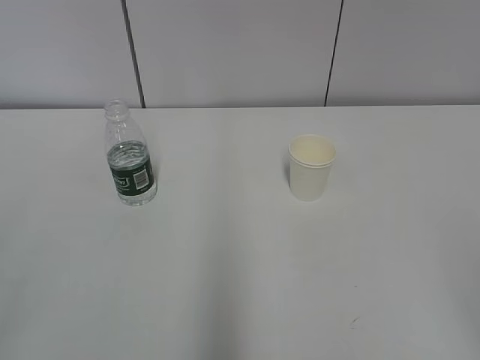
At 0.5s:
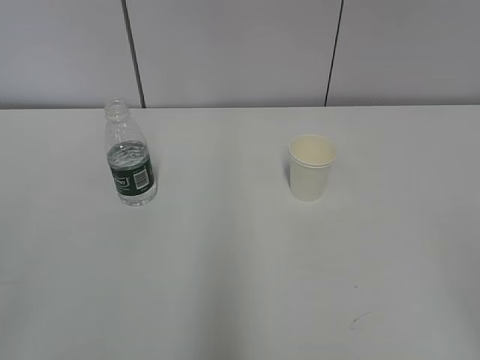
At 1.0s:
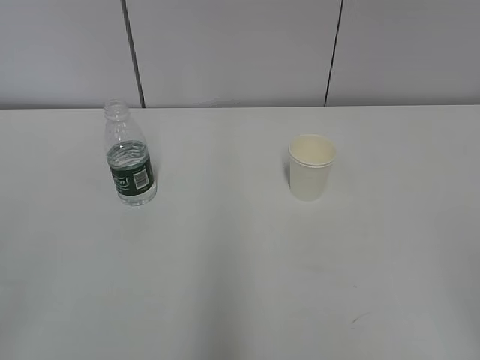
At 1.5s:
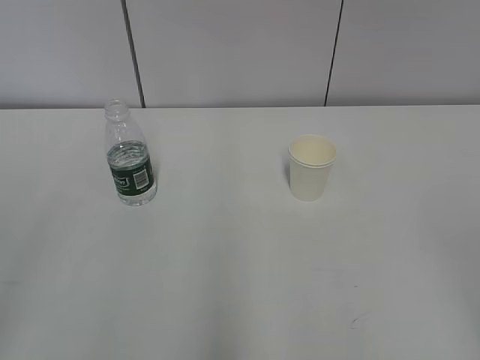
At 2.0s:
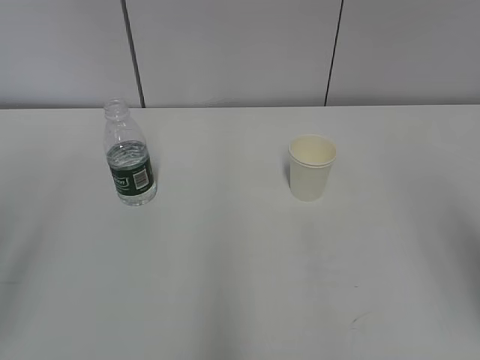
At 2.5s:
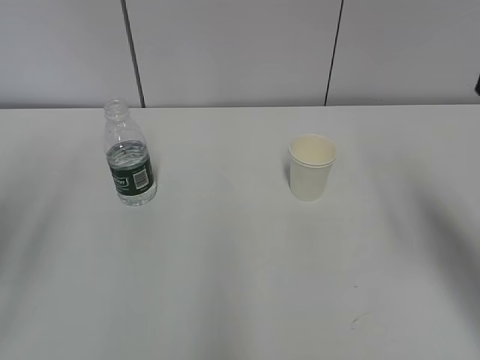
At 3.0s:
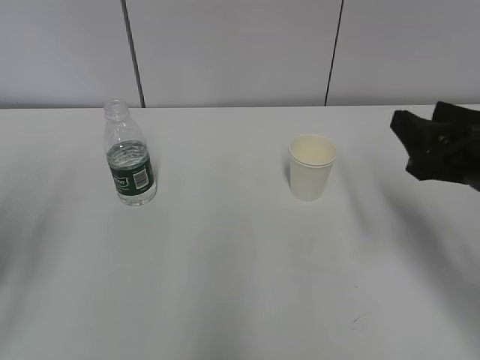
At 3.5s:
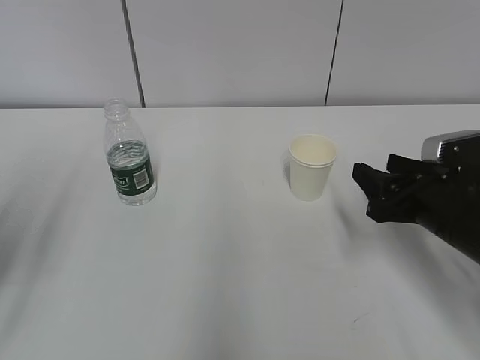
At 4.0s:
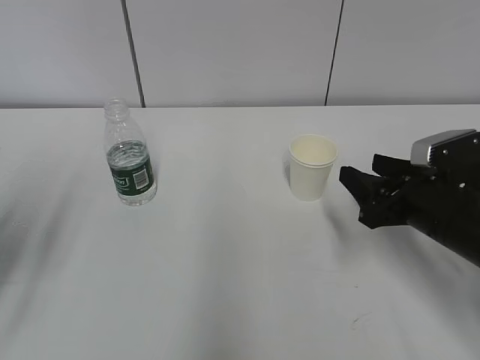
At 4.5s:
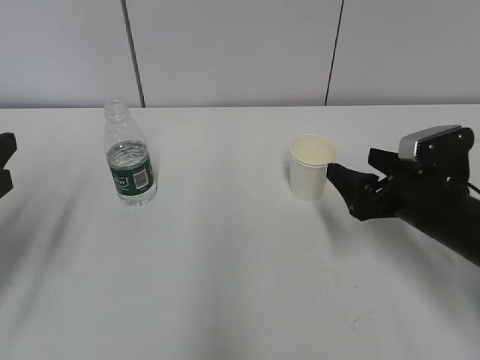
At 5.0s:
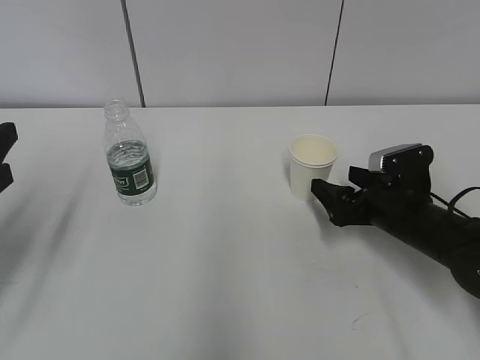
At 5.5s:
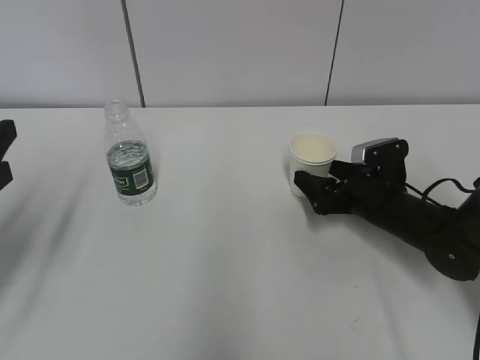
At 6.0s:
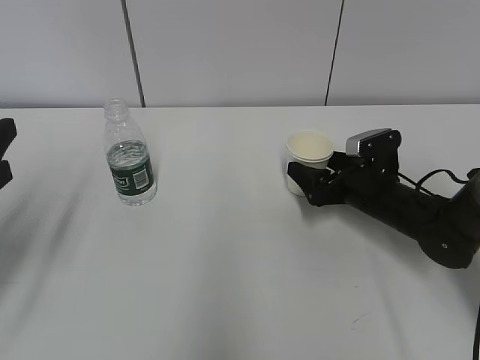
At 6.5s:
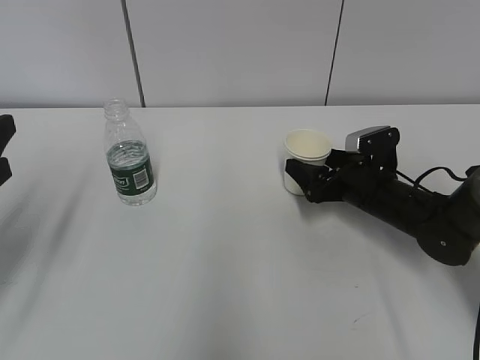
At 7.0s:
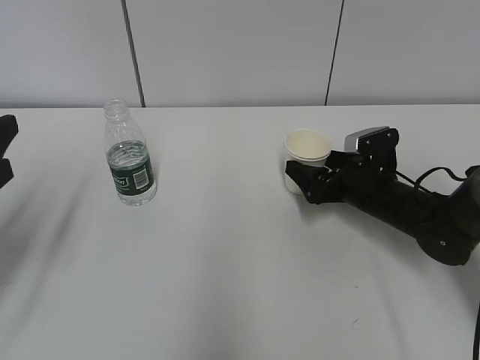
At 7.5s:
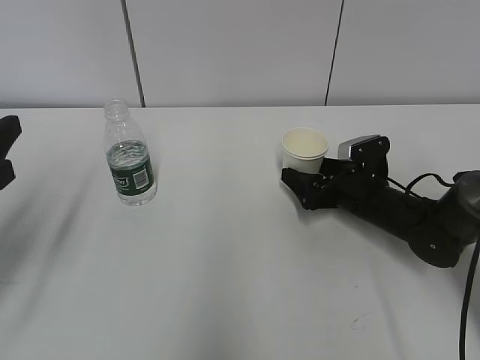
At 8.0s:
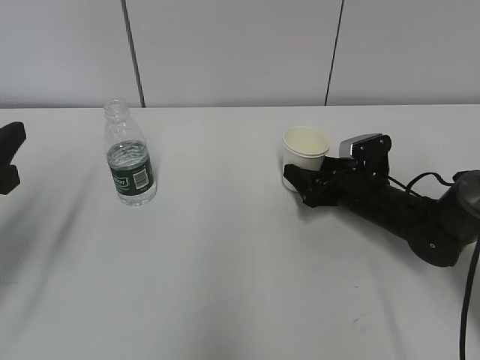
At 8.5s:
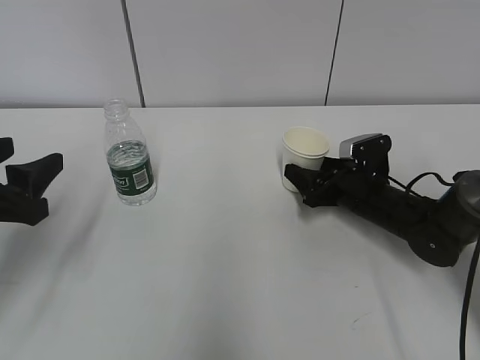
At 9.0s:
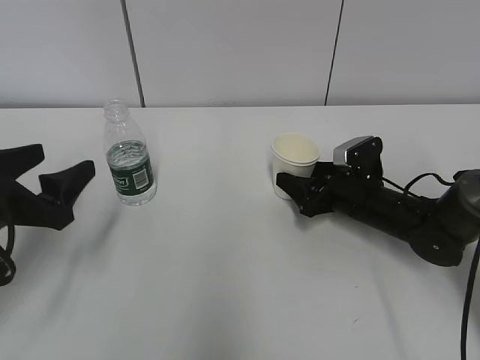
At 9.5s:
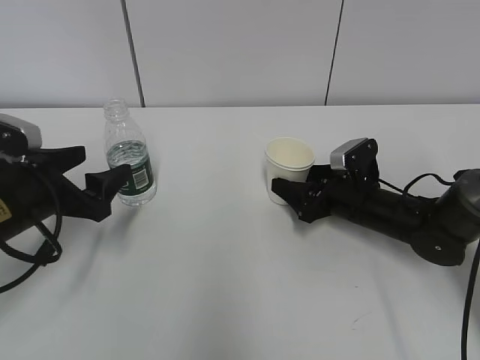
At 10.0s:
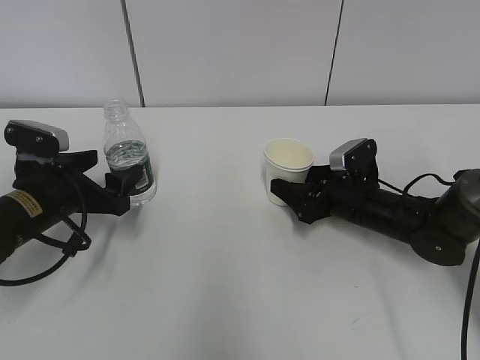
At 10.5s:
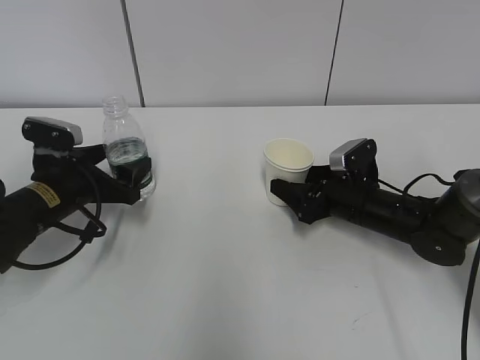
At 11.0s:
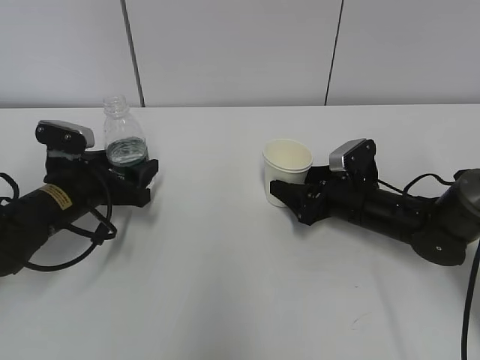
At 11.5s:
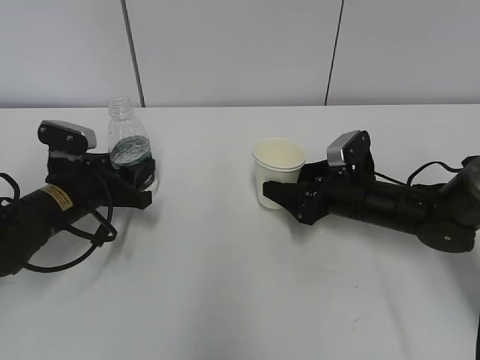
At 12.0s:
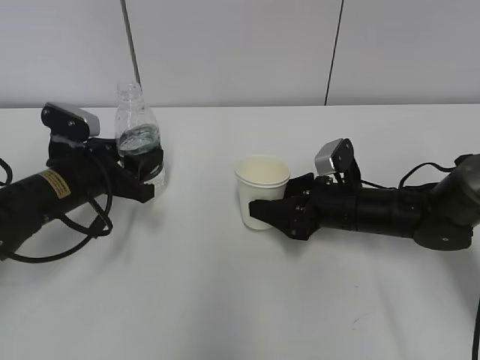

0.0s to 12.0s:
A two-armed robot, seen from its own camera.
Step, 0.0s to 7.0s: Grab the paper cup with the right hand.
Step, 7.5s to 9.5s: Grab the water bottle with the left hand.
2.0s to 4.0s: The right gripper moves downward and forward, some 25 cm.
4.0s to 6.0s: The right gripper heads forward and downward, covering approximately 10 cm, and opens its fingers.
6.0s to 8.0s: The right gripper closes.
8.0s to 10.0s: The left gripper goes roughly 15 cm downward, forward and to the right.
10.0s to 12.0s: The left gripper closes.

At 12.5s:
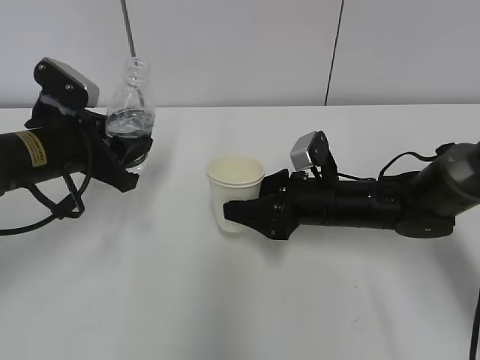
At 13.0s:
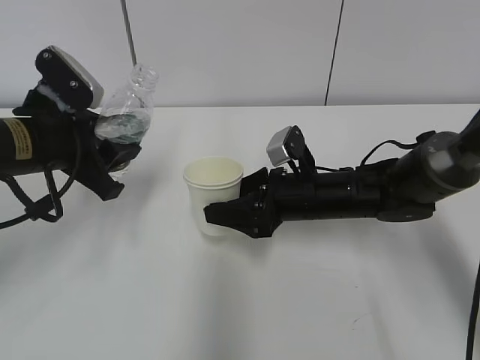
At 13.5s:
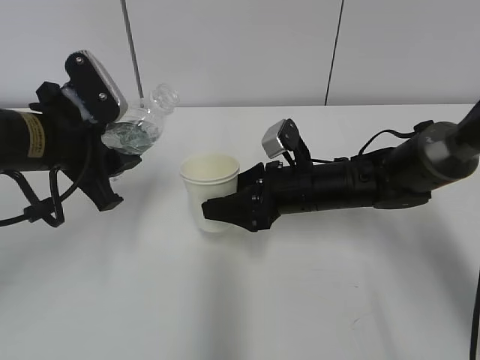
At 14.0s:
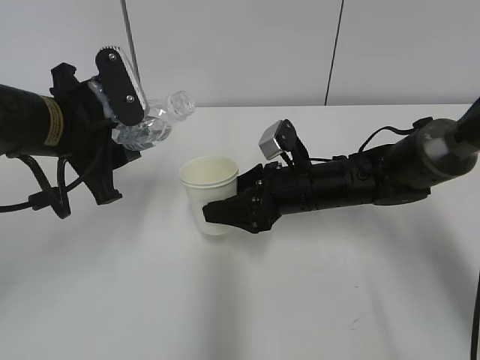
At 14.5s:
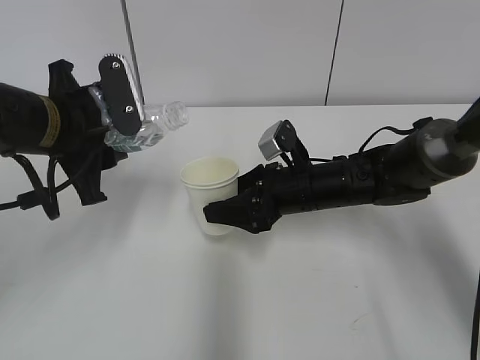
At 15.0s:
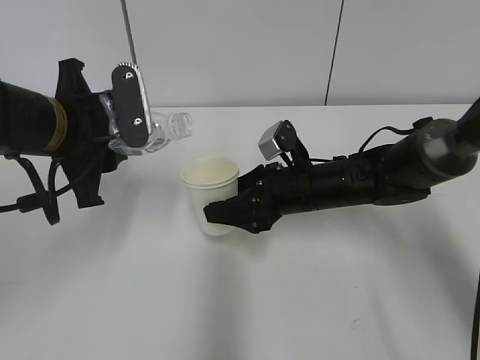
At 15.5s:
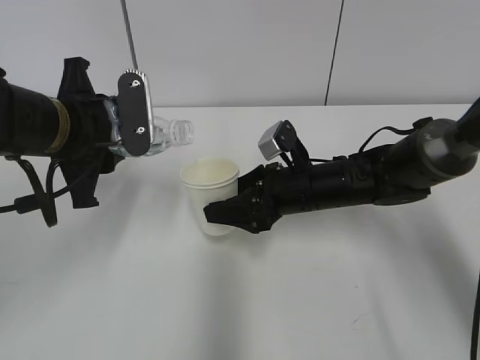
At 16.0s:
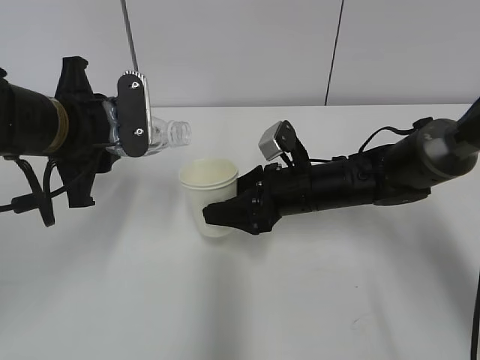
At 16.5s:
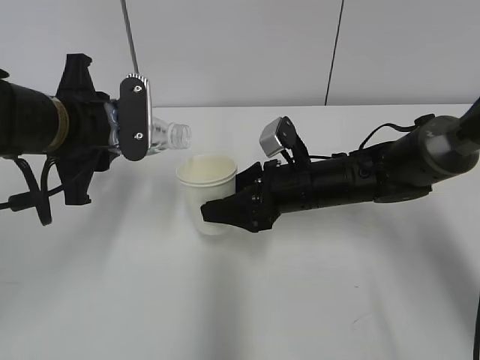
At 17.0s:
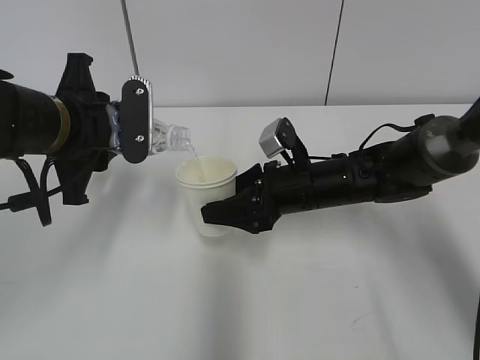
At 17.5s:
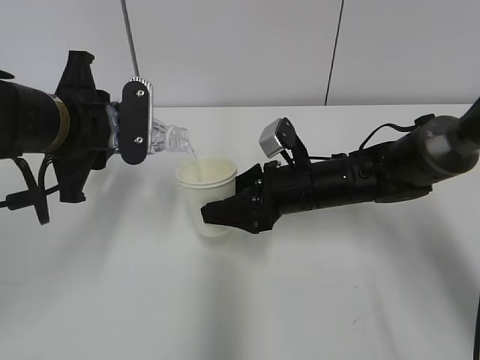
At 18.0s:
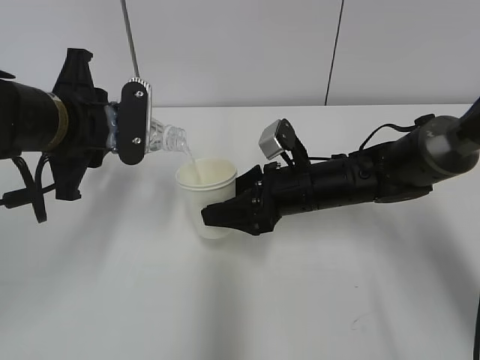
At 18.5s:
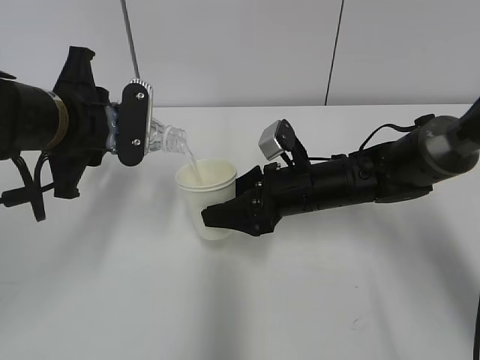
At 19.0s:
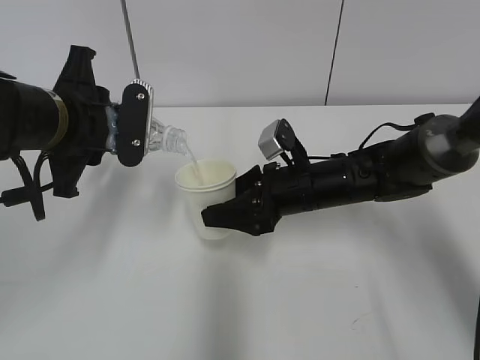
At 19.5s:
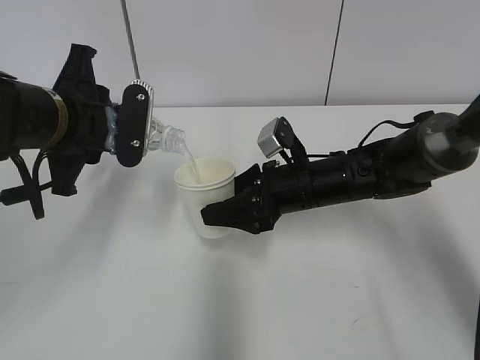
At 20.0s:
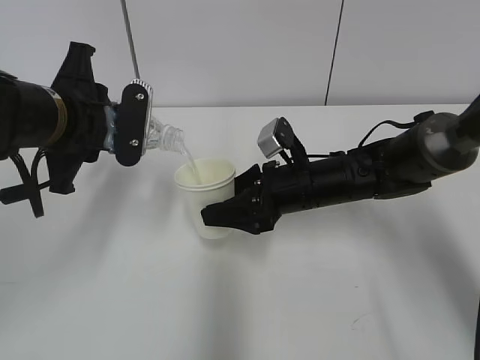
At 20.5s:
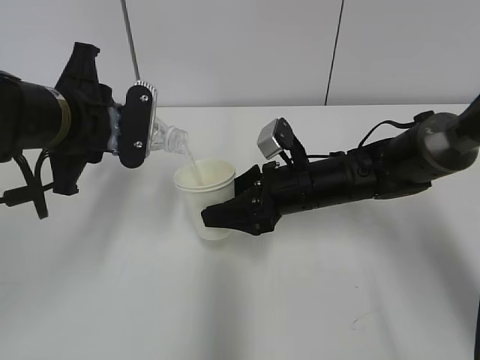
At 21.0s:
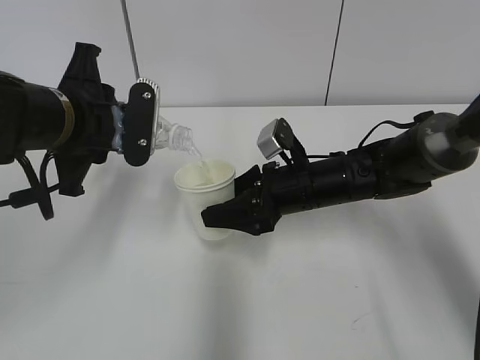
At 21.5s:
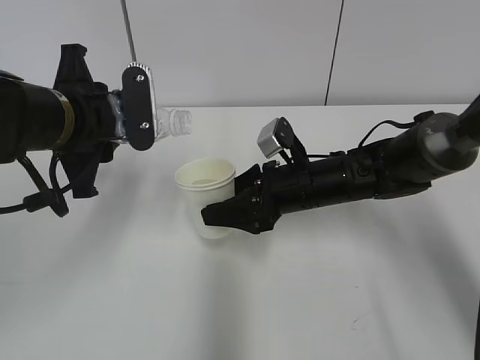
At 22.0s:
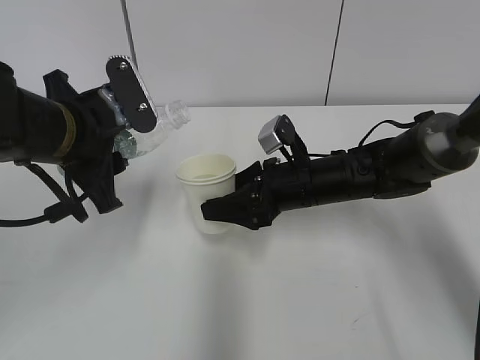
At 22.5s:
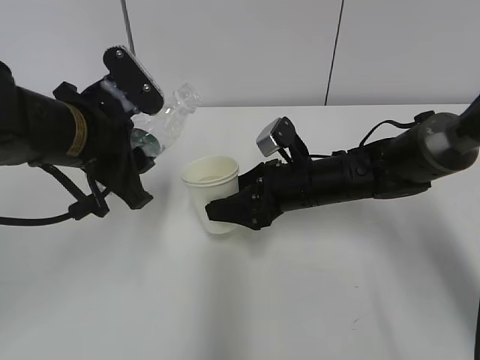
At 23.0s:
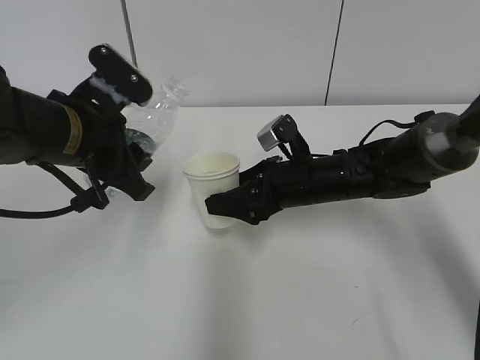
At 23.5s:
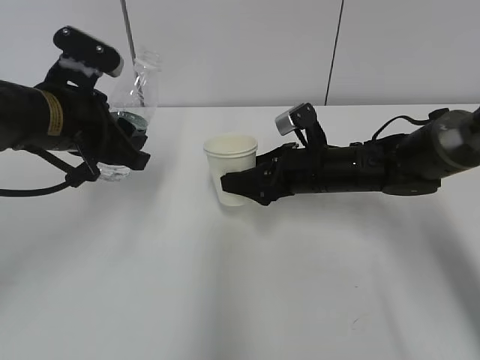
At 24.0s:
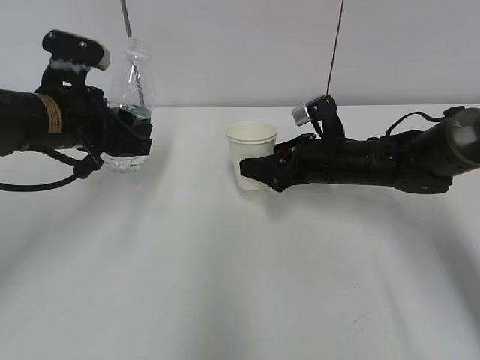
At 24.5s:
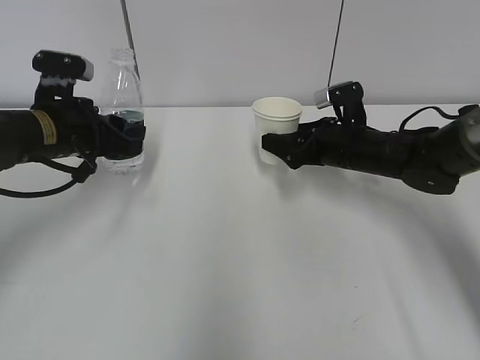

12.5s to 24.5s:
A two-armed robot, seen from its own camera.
Step, 14.0s to 17.5s: Fill water with the right hand.
Step, 14.0s to 17.5s: Pour water with the left hand.
Step, 18.0s to 20.5s: Collect water with the left hand.
Step, 21.0s to 23.5s: Place the paper cup with the right hand.
12.5s to 14.5s: The left gripper shifts about 5 cm upward.
14.5s to 16.5s: There are only small adjustments of the grippers.
16.5s to 18.5s: The grippers stay close to where they were, moving slightly.
18.5s to 20.5s: Both grippers stay about where they are.
22.5s to 24.5s: The left gripper shifts some 10 cm forward and to the left; the right gripper shifts about 5 cm to the right.

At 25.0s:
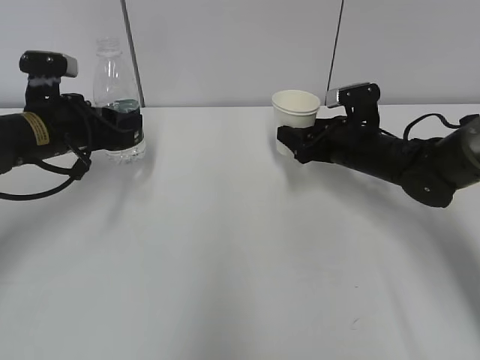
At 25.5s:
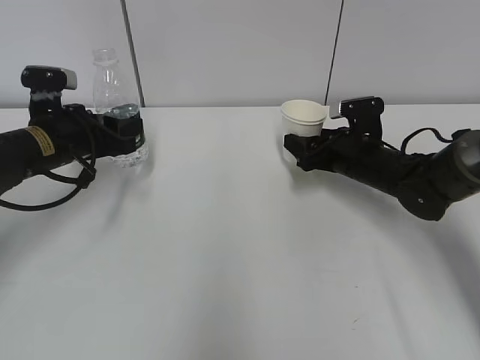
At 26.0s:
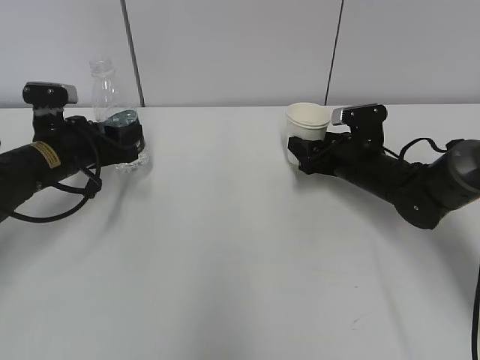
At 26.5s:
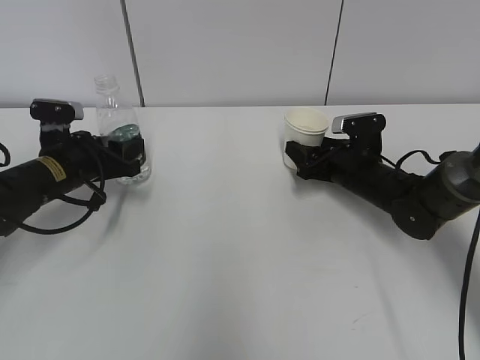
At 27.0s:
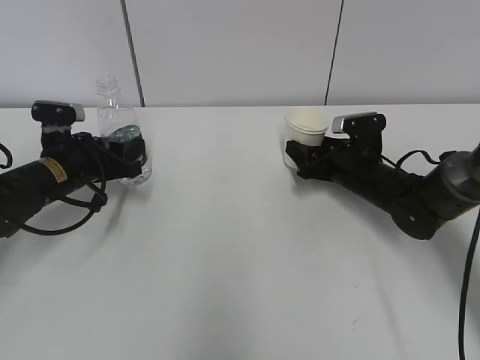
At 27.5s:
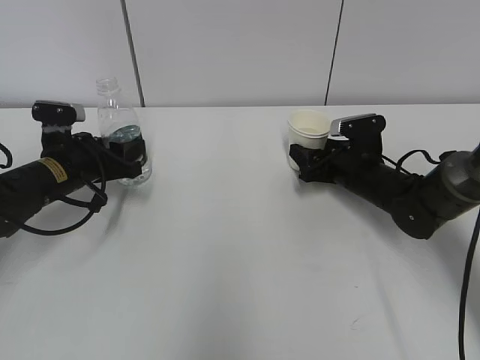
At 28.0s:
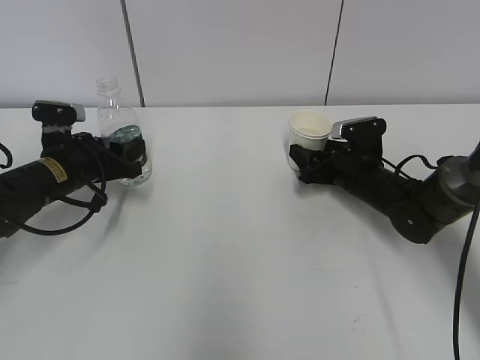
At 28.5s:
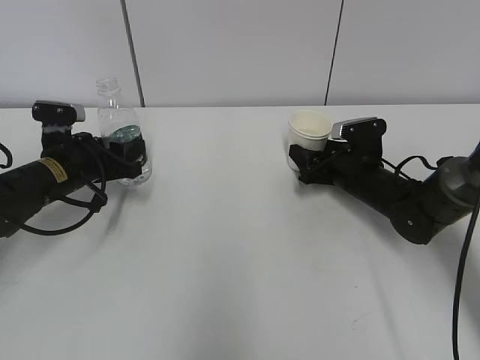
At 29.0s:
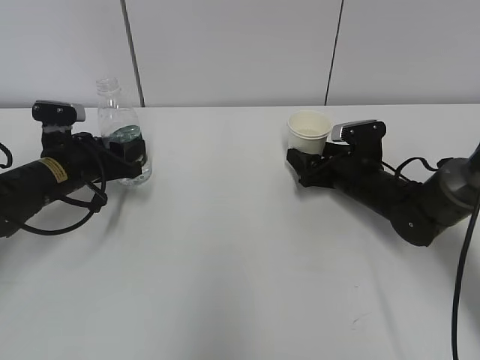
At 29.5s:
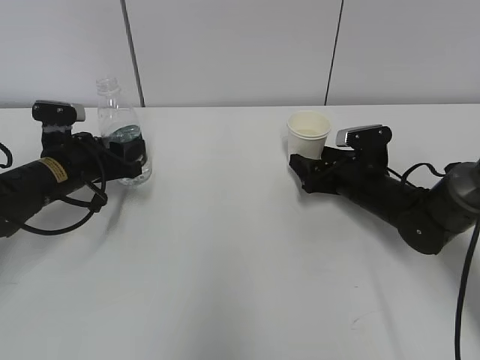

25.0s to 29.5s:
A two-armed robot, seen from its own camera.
25.0s to 27.0s: The left gripper heads downward, covering some 10 cm.
27.0s to 29.5s: The right gripper opens up.
